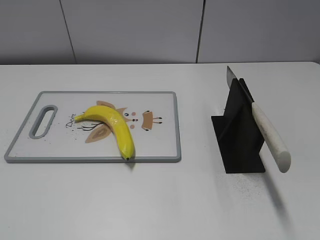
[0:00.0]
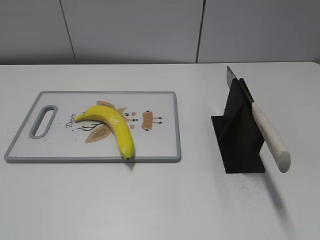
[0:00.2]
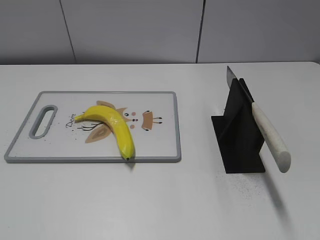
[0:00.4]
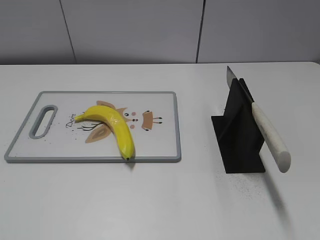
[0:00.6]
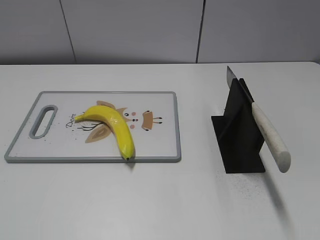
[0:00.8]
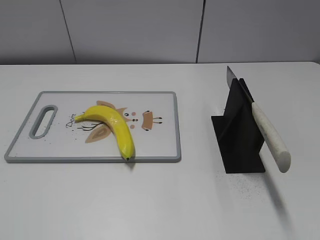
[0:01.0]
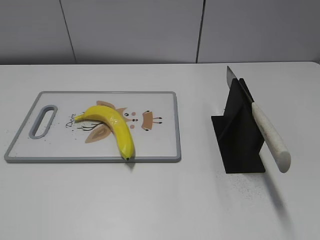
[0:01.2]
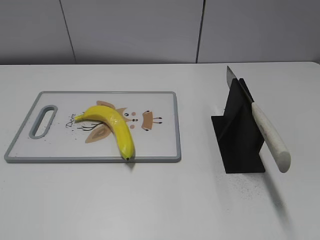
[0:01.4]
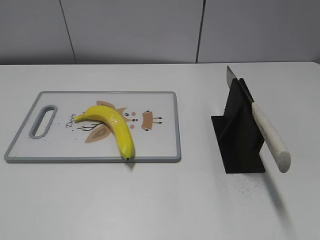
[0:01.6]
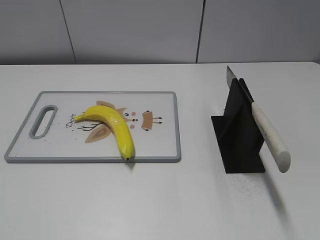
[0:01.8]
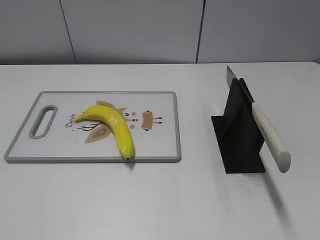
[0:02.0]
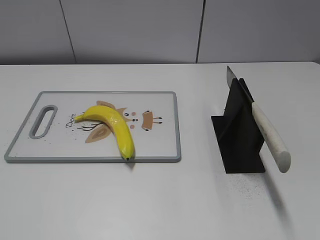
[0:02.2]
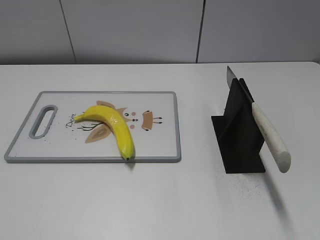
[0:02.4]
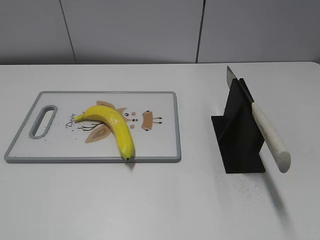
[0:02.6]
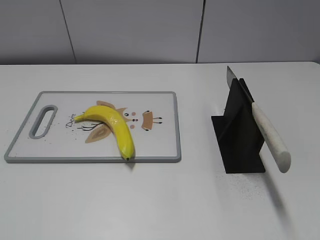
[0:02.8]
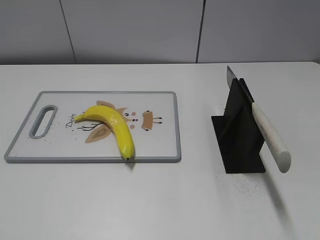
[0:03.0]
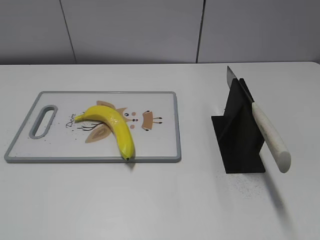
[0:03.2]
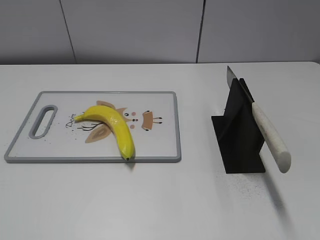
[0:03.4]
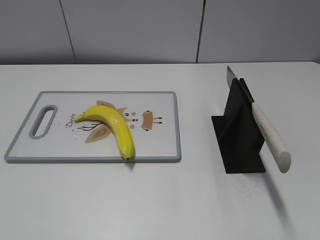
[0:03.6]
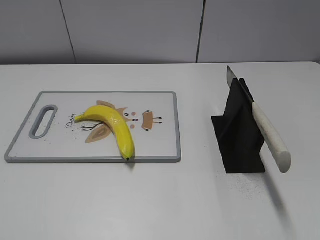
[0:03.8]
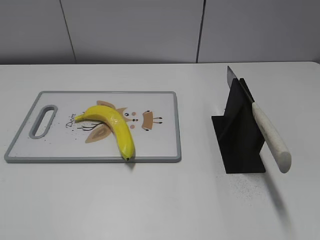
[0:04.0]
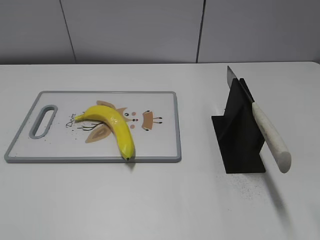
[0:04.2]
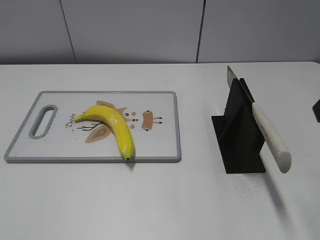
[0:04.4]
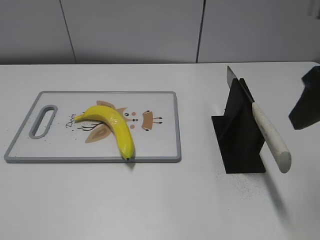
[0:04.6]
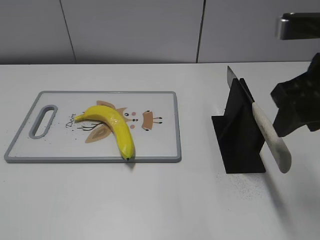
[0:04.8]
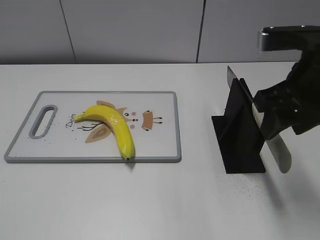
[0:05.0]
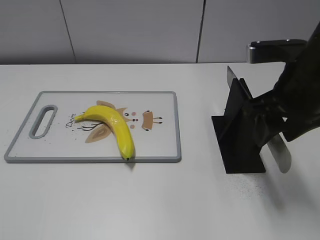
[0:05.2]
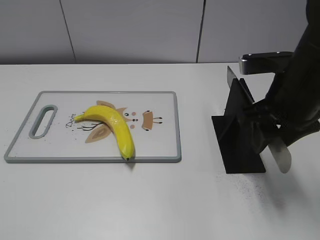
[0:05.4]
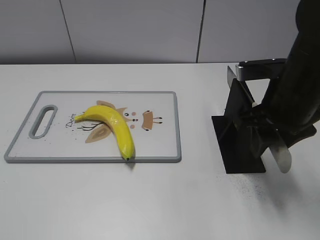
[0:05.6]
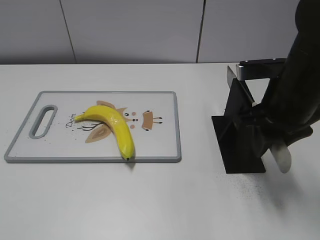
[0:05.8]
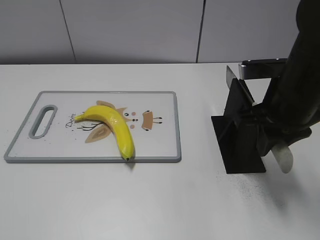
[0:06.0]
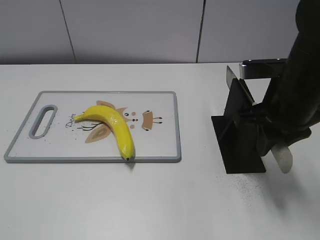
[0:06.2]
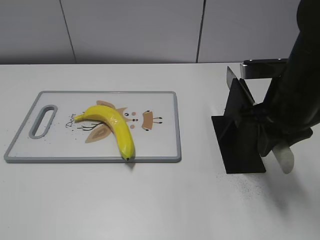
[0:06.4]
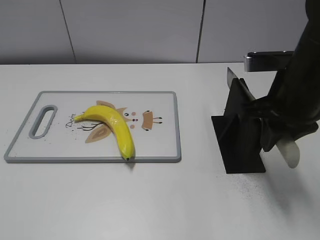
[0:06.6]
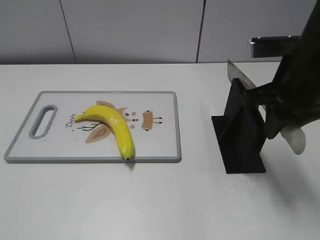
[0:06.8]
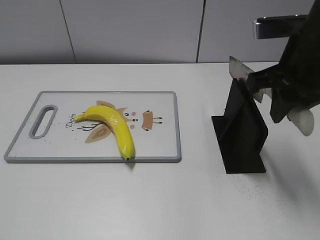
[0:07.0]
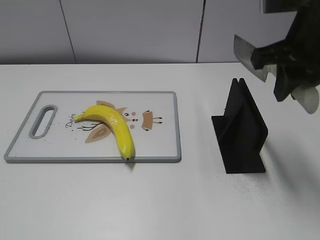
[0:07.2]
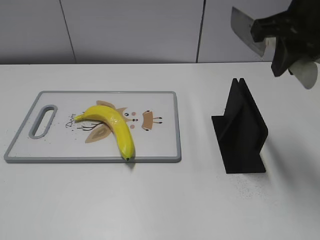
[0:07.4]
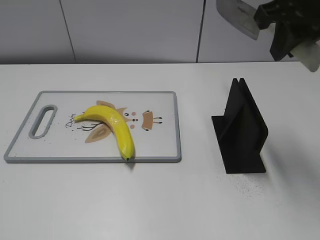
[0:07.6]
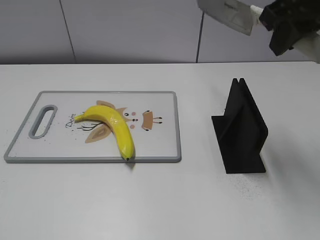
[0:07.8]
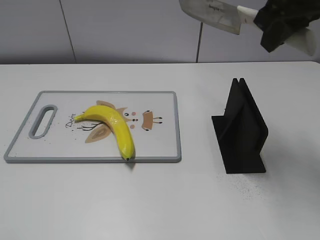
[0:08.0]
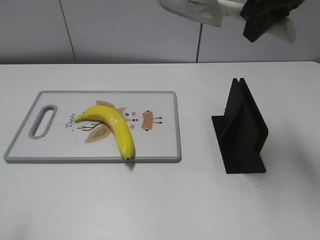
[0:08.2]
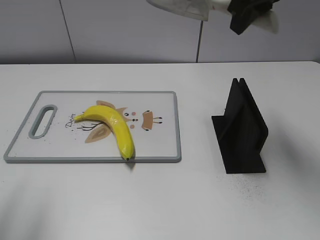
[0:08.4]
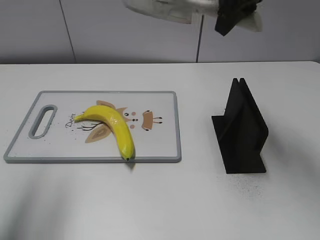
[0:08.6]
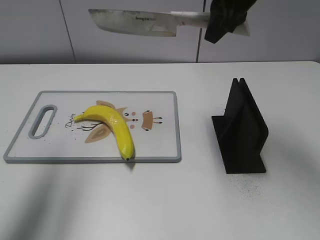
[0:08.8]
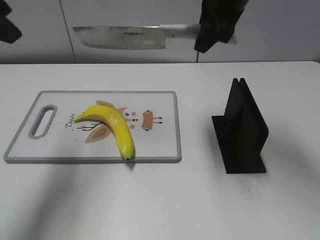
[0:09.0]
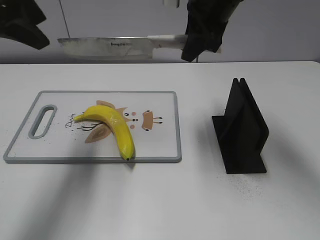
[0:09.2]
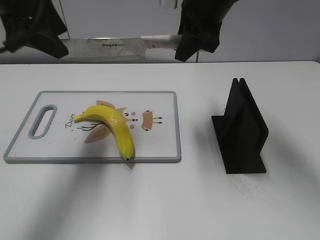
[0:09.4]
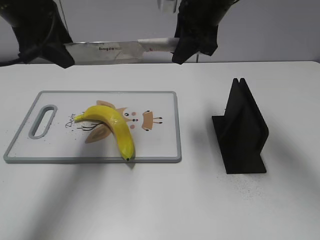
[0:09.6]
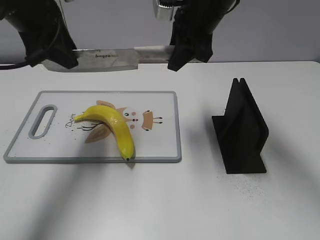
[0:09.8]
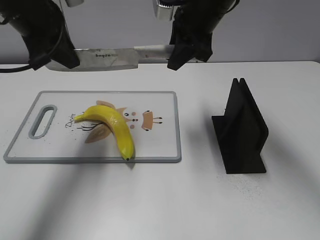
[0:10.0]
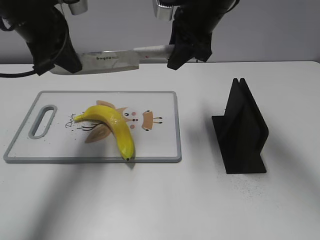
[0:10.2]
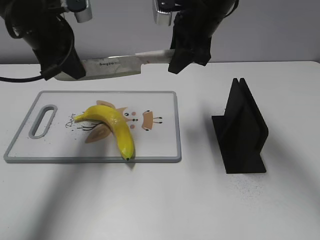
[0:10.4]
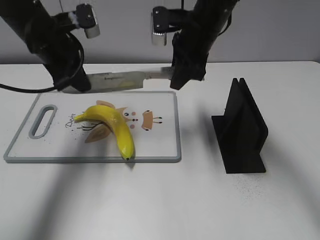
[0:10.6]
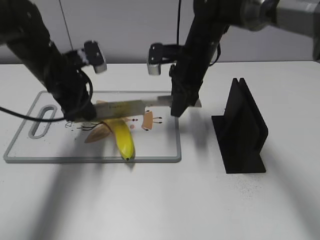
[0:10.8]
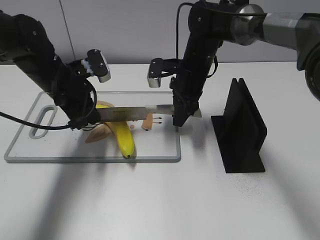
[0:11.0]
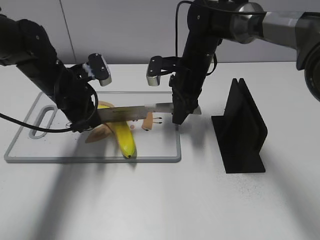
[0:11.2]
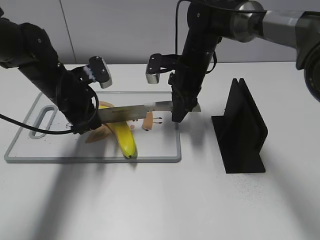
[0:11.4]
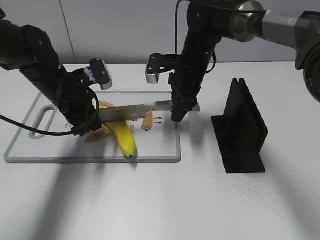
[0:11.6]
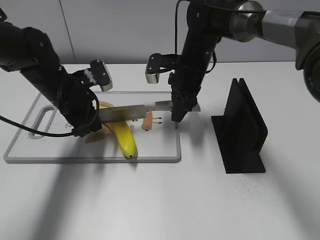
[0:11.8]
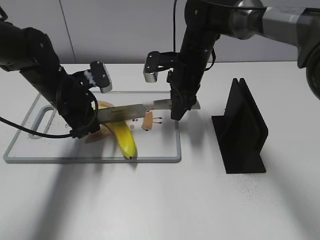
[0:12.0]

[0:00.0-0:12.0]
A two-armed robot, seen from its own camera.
Task of the whole recording: cut plastic banana.
Step, 0:00.0 to 0:07.6: Grab the knife handle with your right hand.
0:04.4 to 0:06.0: The right gripper shifts about 15 cm downward, forward and to the left, and closes up.
0:06.0 to 0:07.6: The right gripper goes some 15 cm upward.
0:07.6 to 0:09.0: The right gripper is displaced forward and to the left by roughly 10 cm; the left gripper is displaced forward by approximately 30 cm.
0:09.0 to 0:10.4: The right gripper shifts roughly 5 cm downward; the left gripper moves downward, forward and to the right, some 15 cm, and closes its fingers.
0:10.4 to 0:12.0: Both grippers move downward, approximately 10 cm.

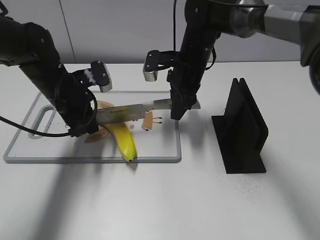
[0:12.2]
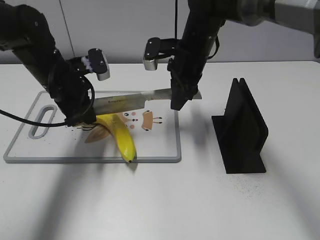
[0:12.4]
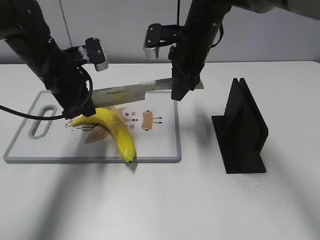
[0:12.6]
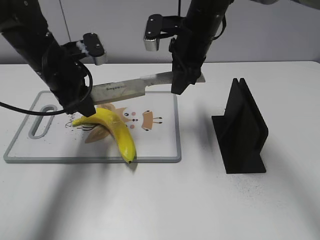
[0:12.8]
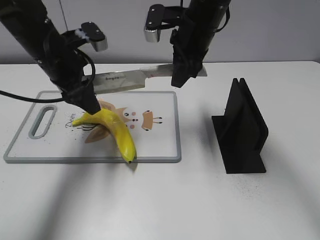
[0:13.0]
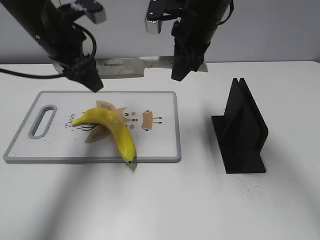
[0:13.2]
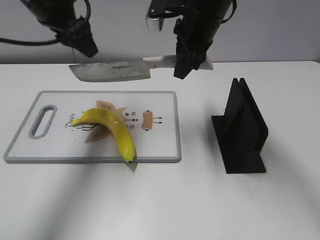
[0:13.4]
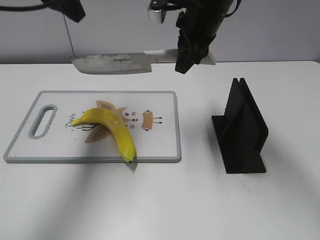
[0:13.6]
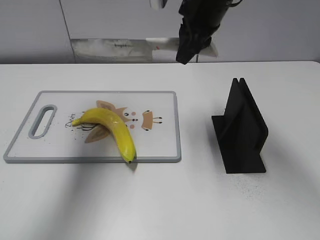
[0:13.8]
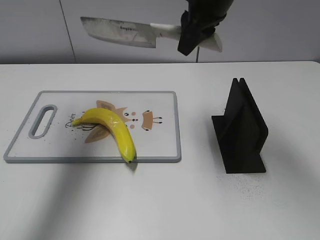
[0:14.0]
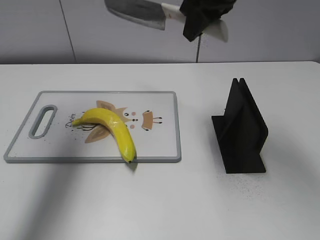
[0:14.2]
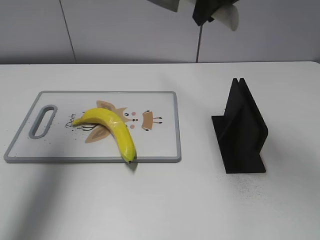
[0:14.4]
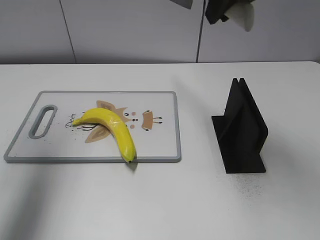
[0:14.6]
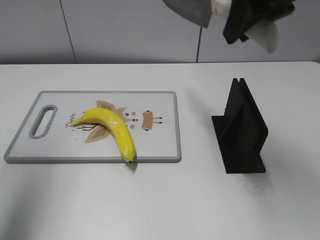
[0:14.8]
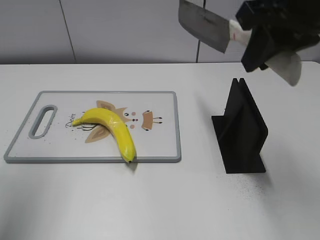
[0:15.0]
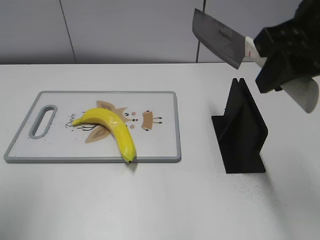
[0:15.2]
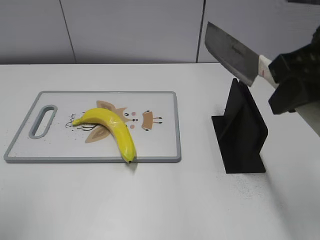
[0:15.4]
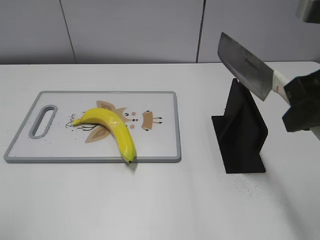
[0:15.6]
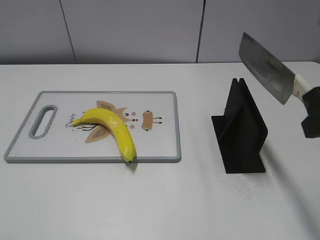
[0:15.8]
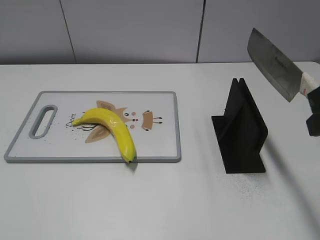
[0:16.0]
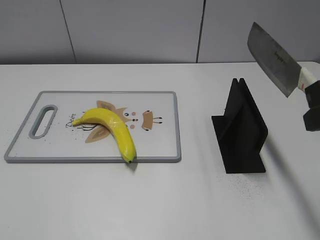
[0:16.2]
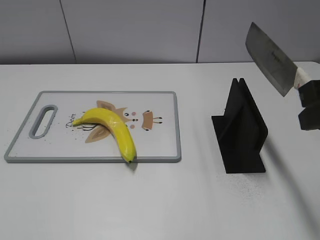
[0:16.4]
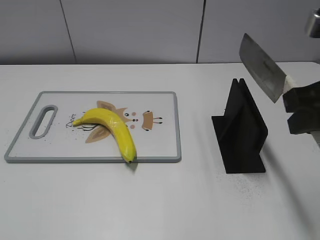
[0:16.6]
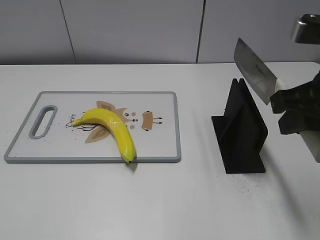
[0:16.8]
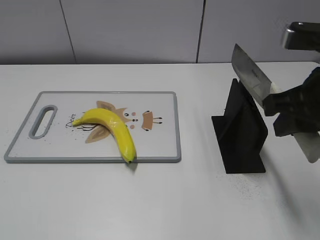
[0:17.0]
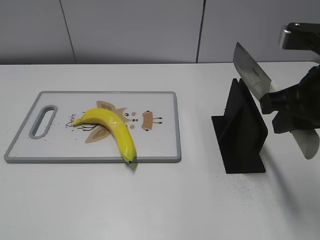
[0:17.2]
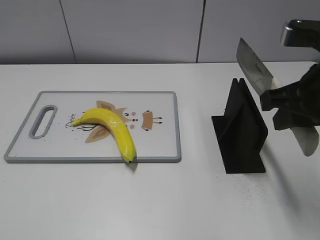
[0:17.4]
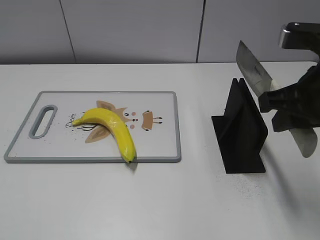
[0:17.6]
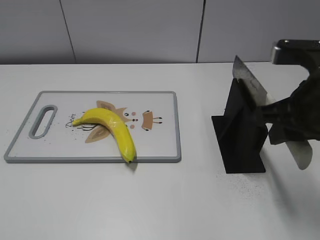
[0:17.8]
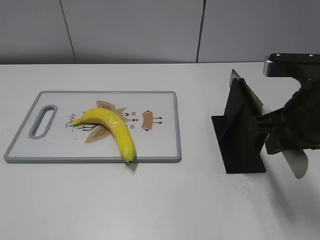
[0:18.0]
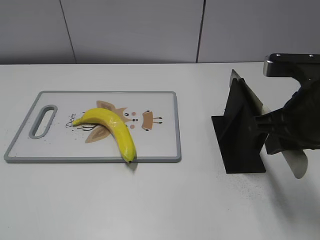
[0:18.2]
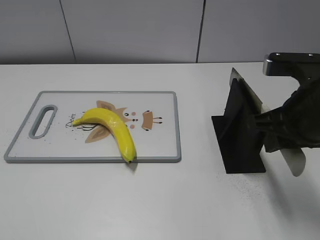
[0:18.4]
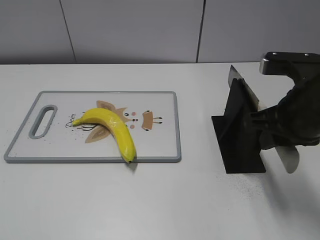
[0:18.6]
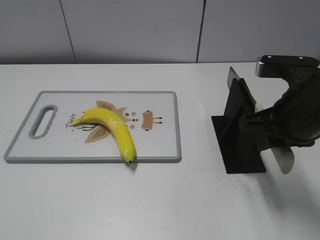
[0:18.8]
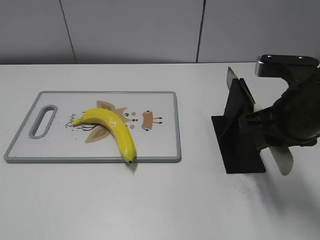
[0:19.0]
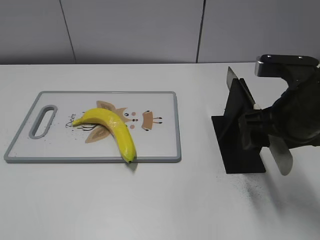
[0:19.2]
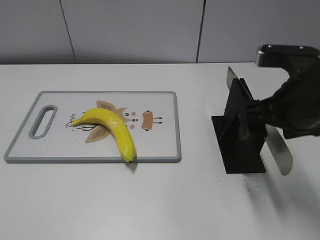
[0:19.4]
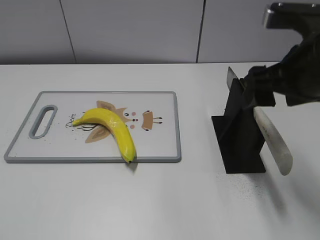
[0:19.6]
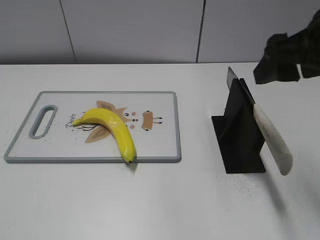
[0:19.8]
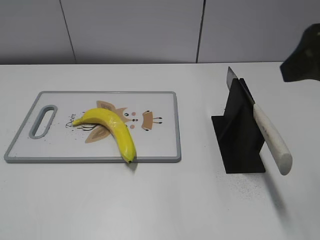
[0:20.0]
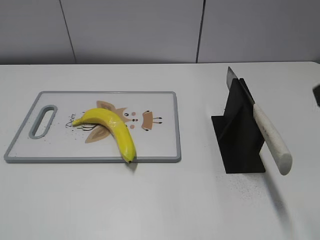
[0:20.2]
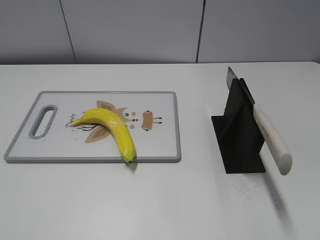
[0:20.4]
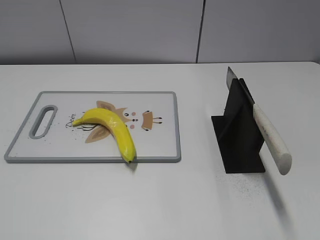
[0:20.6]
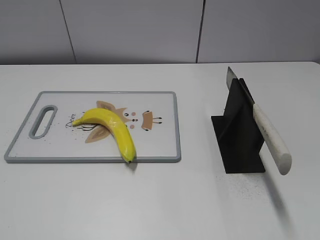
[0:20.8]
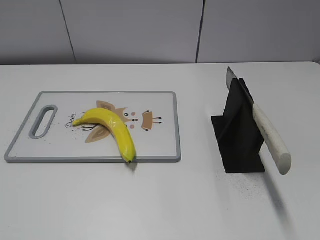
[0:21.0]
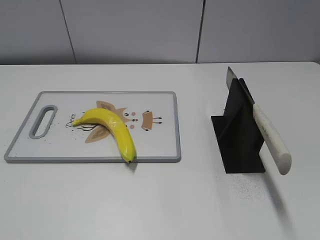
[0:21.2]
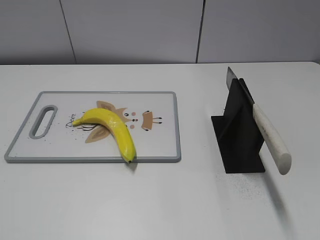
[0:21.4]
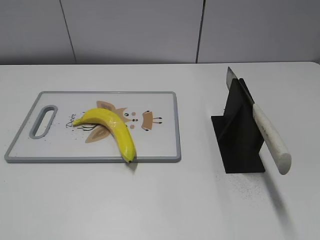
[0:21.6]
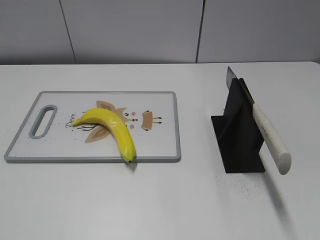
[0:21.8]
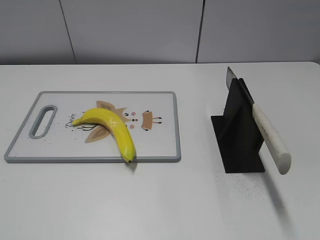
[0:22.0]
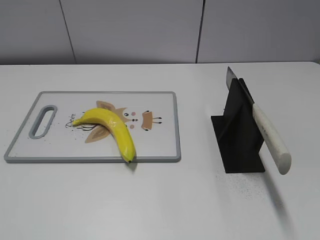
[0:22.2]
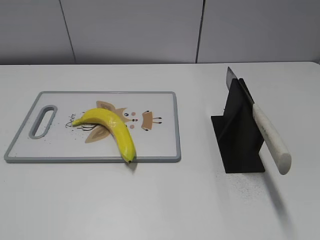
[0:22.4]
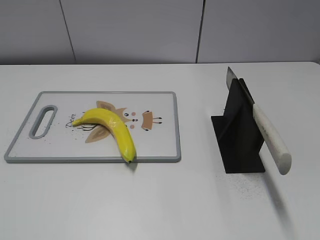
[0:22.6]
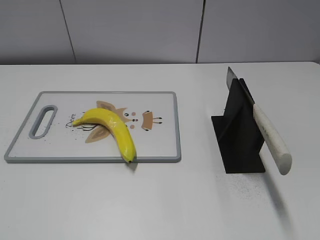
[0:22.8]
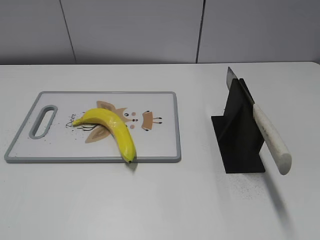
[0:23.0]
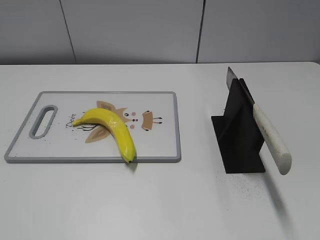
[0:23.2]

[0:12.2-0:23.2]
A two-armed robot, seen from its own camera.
Task of the whole recording: cut plastic banana.
Step, 0:12.8 to 0:15.0: Cut the banana with your right hand.
Step, 0:15.4 to 0:16.0: Secure the blade with your left hand.
Step, 0:16.2 to 0:23.2: Place the knife on the storage rack with your right hand.
0:12.2 to 0:13.8: The right gripper travels upward by approximately 15 cm. The left gripper goes approximately 25 cm upward, and opens up.
0:13.8 to 0:15.4: The right gripper travels backward and to the right by about 20 cm, while the left gripper is displaced backward and to the left by approximately 25 cm.
0:15.4 to 0:17.0: The left gripper shifts about 15 cm backward and downward. Meanwhile the right gripper shifts approximately 5 cm downward.
0:17.0 to 0:18.4: There are only small adjustments of the grippers.
0:18.4 to 0:20.0: The right gripper heads upward, covering some 10 cm, and opens up.
0:20.0 to 0:21.6: The right gripper heads backward and to the right, covering about 20 cm.
